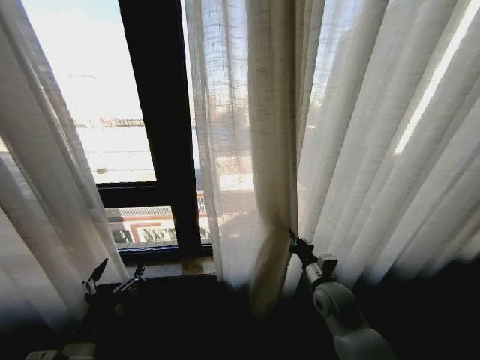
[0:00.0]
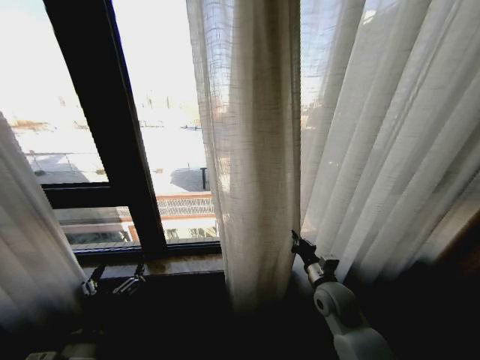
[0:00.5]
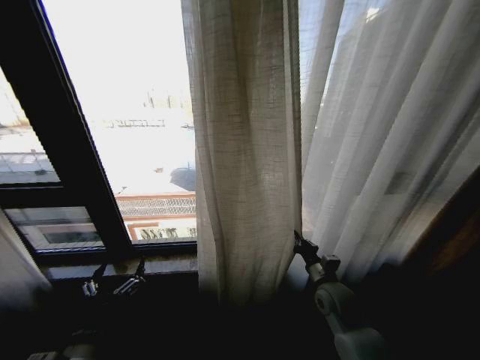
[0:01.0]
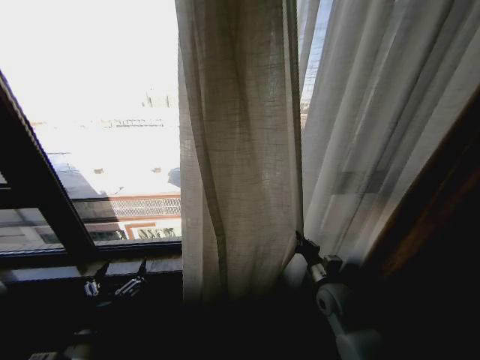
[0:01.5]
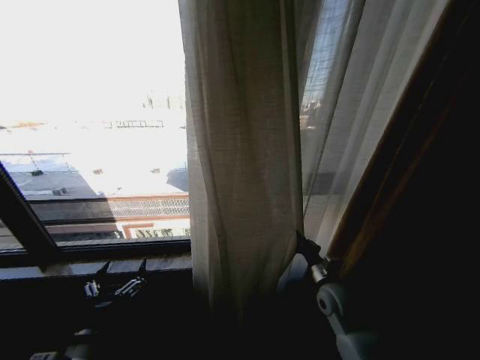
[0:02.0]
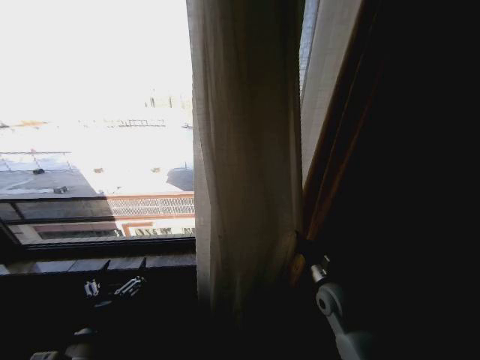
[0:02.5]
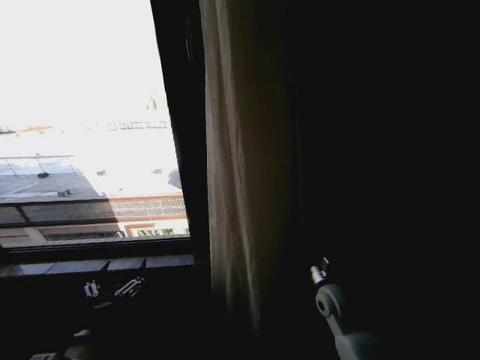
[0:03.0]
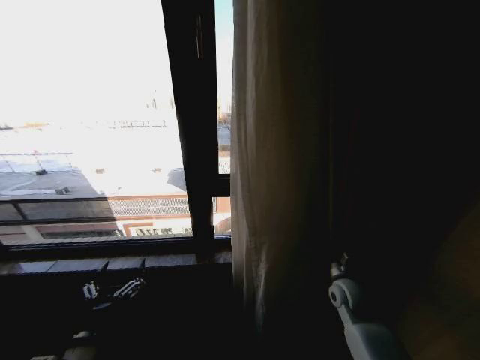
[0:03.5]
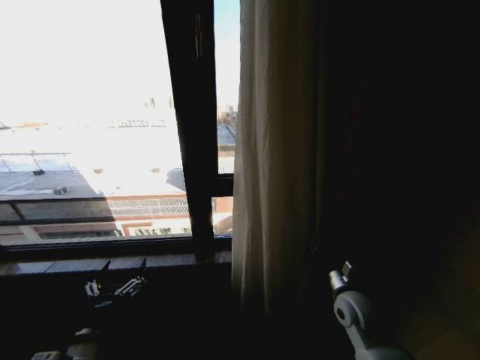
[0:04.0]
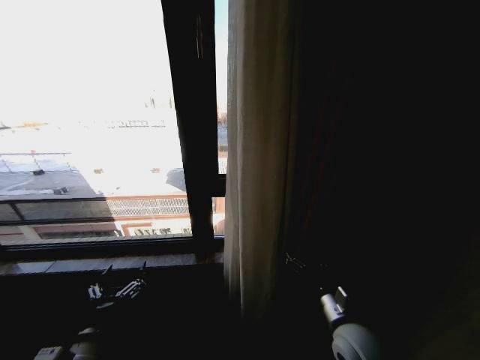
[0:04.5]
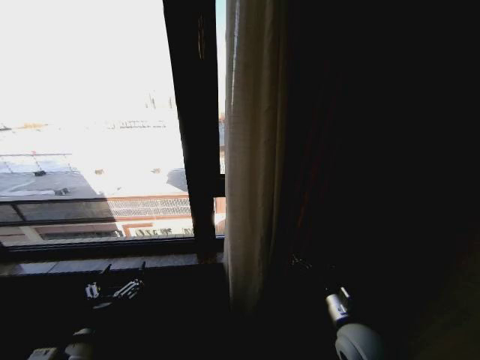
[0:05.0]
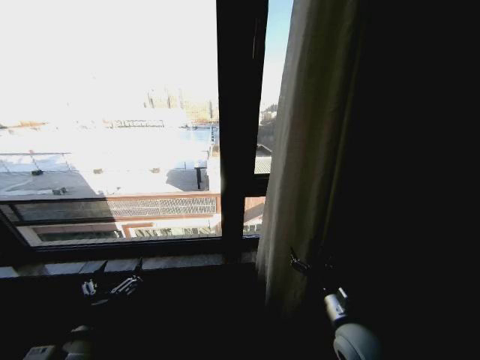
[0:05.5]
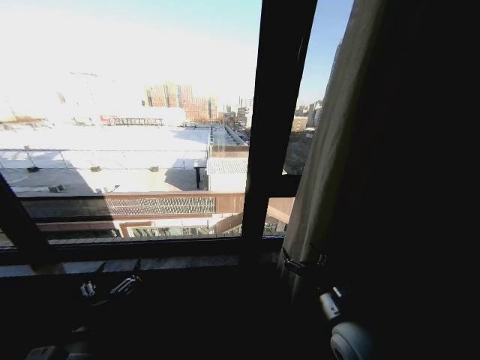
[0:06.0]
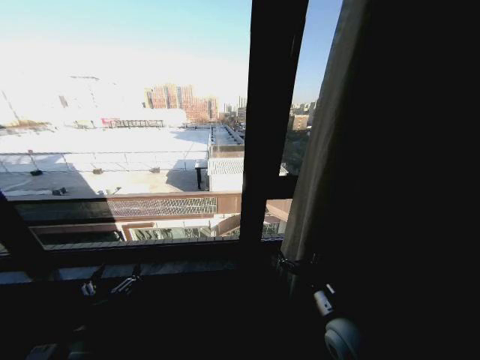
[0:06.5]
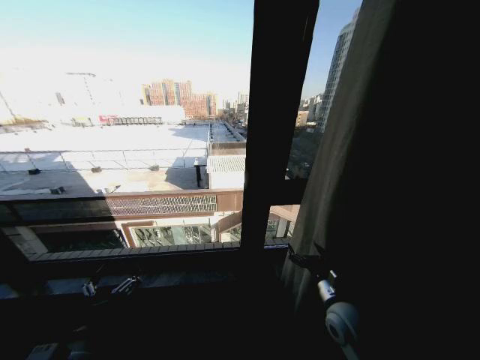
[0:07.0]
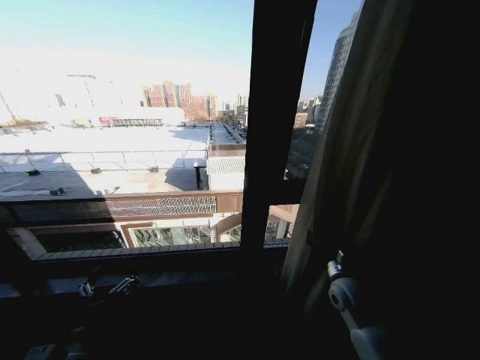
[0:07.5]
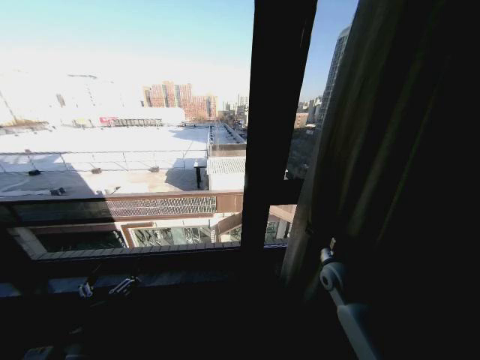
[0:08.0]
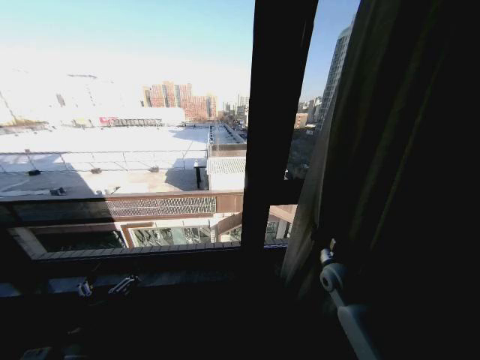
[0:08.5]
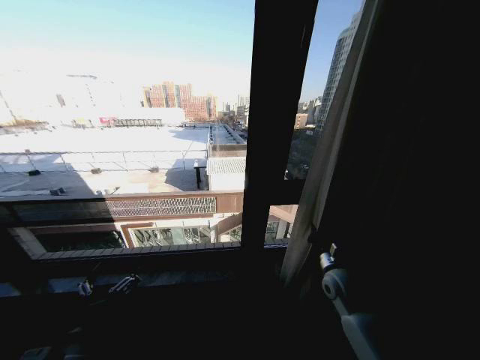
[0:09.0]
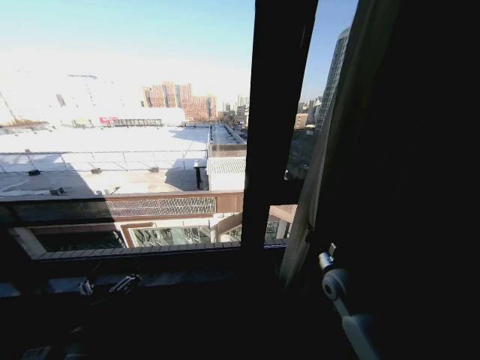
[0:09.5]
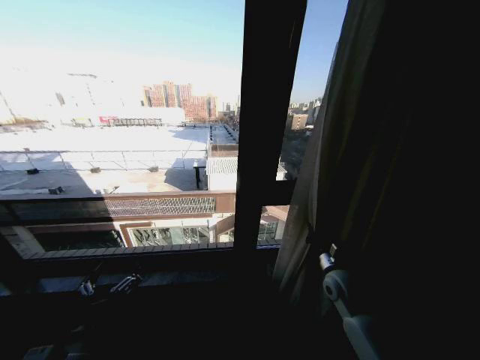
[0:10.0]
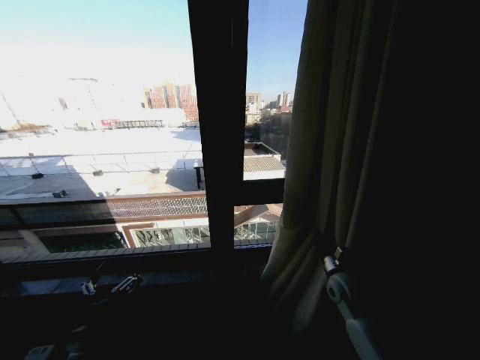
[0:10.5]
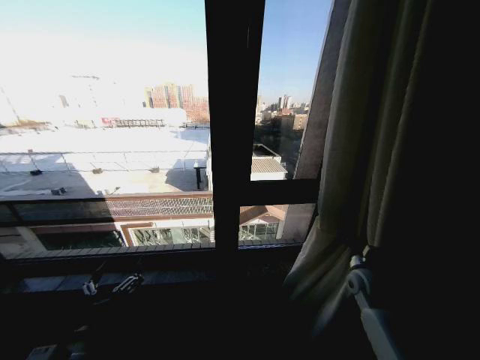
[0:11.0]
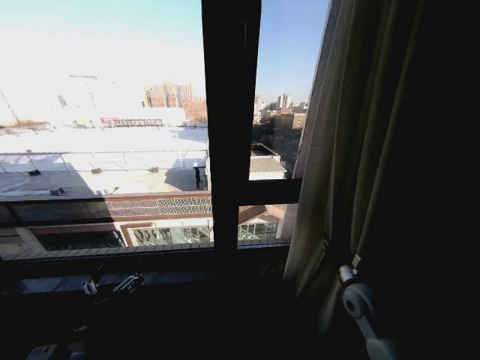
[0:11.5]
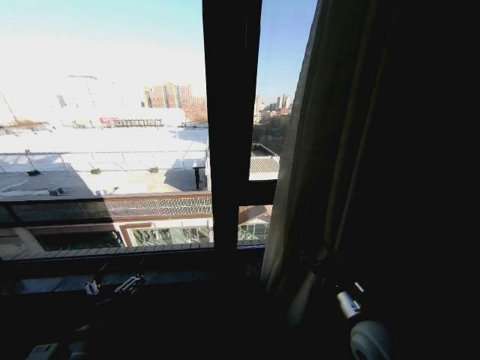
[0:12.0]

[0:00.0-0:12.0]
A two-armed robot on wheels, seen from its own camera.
Task of the whole recording: Open the curtains by pulling them apart, changing their state from closed to fully open.
0:02.0 to 0:04.0: The right gripper opens up.
0:04.0 to 0:06.0: The right gripper moves backward and to the left, some 10 cm, and opens up.
0:06.0 to 0:08.0: The right gripper is displaced forward and to the right by about 15 cm.
0:08.0 to 0:10.0: The right gripper closes.
0:10.0 to 0:12.0: The right gripper moves backward, some 15 cm, and opens.

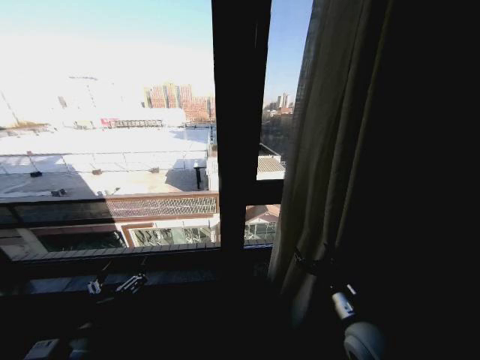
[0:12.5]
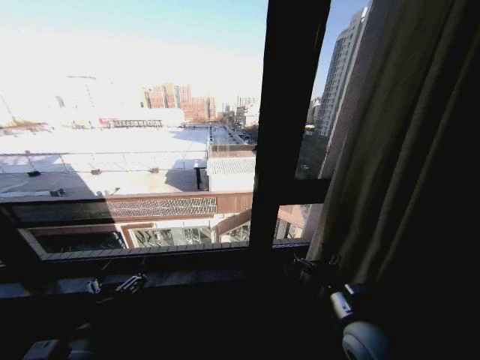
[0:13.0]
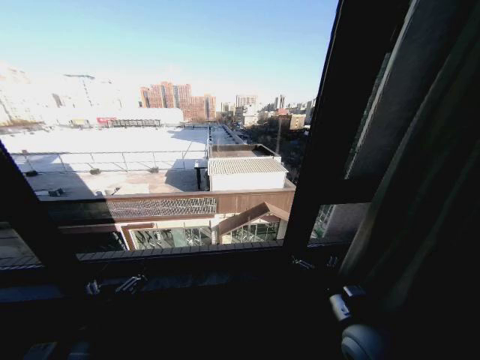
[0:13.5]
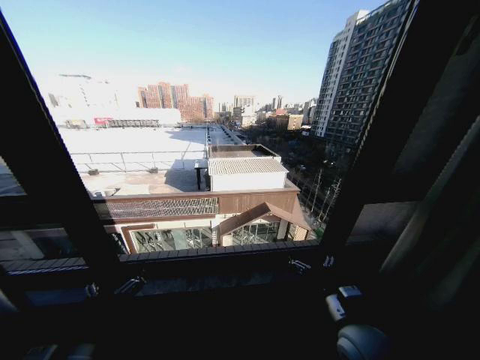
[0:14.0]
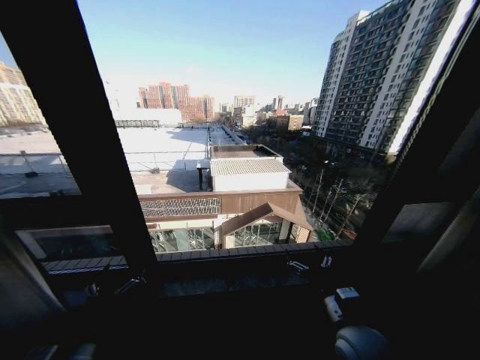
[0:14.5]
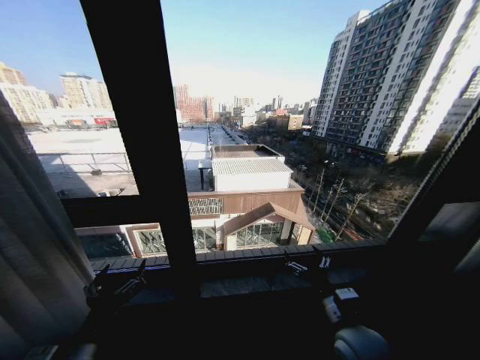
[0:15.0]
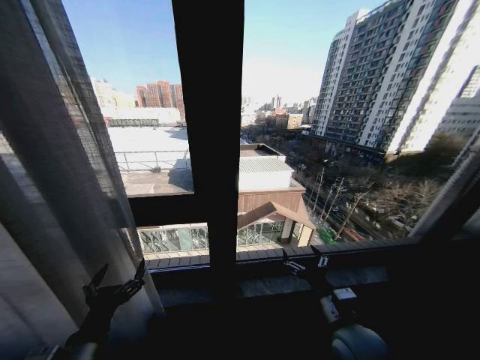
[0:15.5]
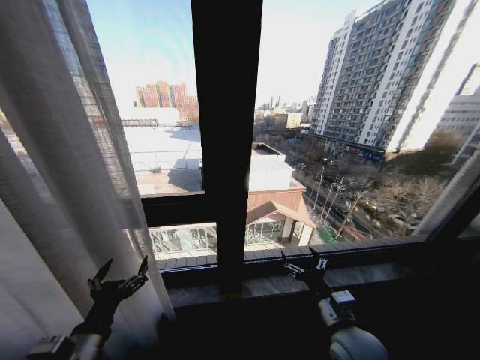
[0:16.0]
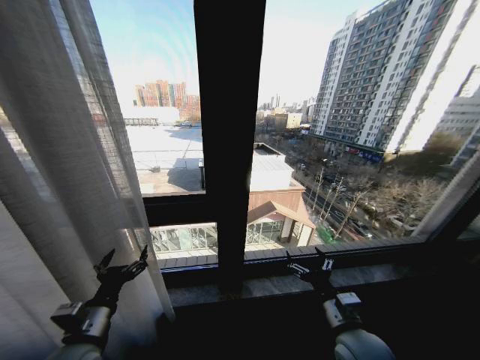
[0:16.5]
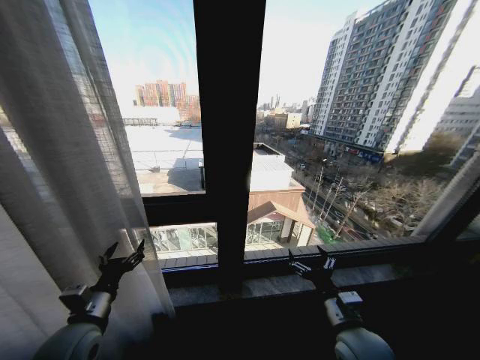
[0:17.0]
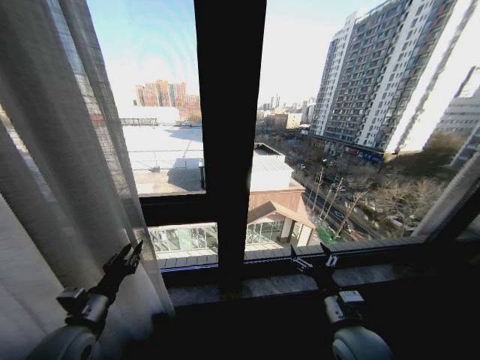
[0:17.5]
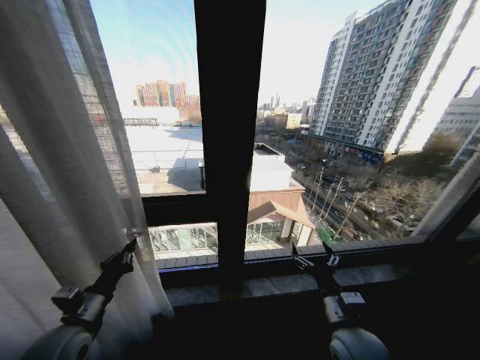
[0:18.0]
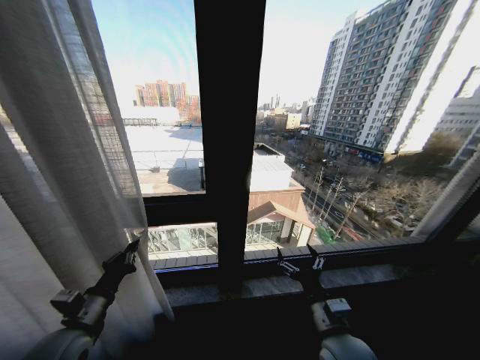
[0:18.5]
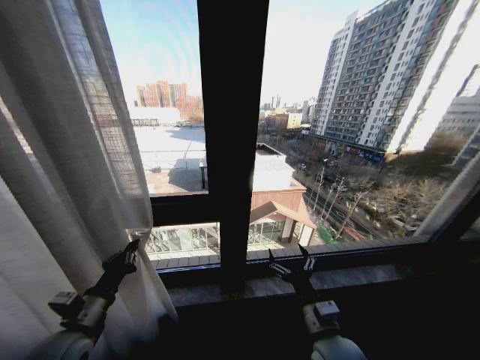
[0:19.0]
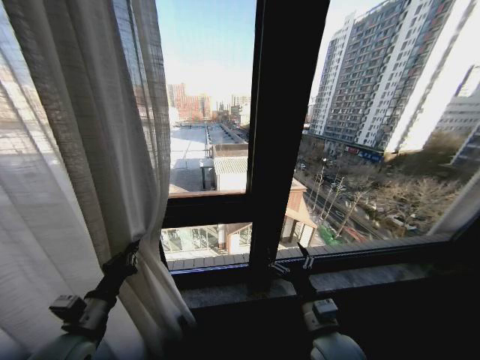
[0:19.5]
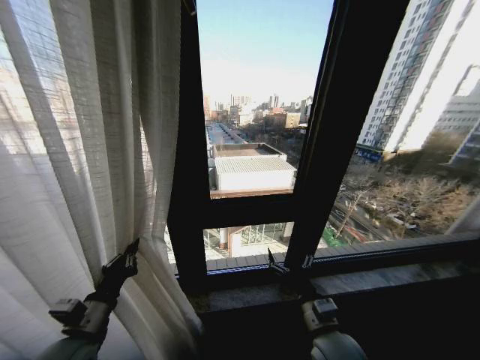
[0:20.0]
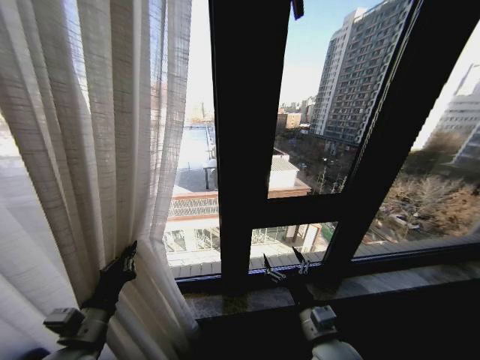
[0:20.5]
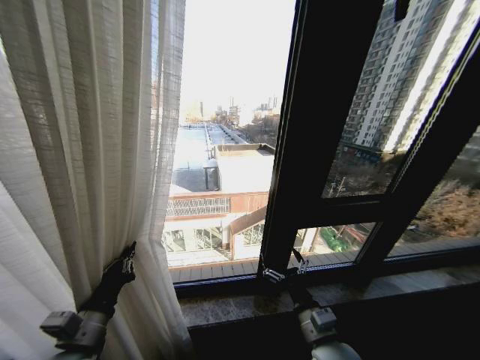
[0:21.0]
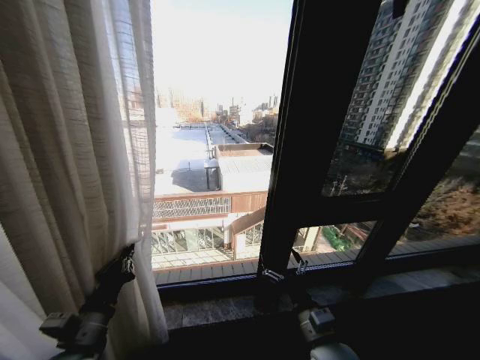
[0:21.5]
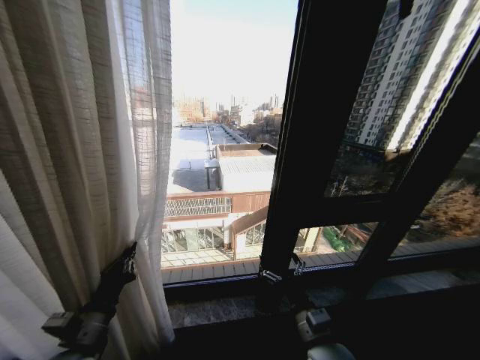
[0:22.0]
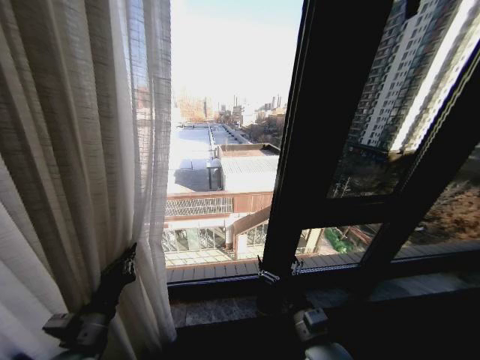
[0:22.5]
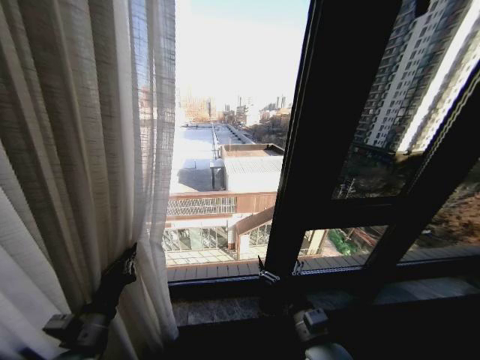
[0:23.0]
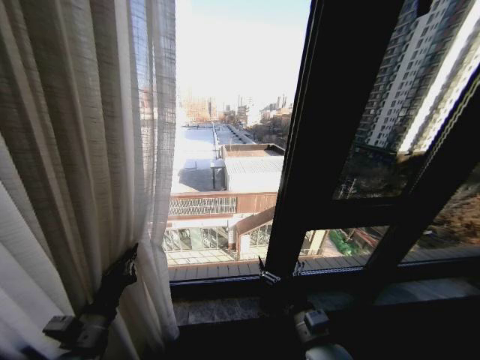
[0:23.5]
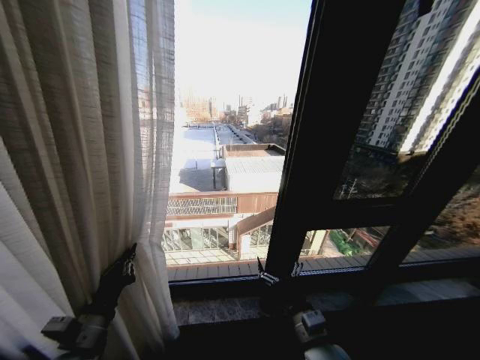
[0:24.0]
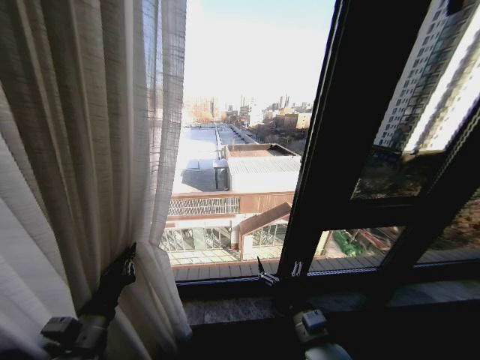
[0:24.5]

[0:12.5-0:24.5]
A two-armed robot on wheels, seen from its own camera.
Task of the whole recording: Open the curtains by pulling them apart, changing their state from closed to fully open.
0:14.5 to 0:16.5: The left gripper shifts about 5 cm forward.
0:16.5 to 0:18.5: The left gripper closes up.

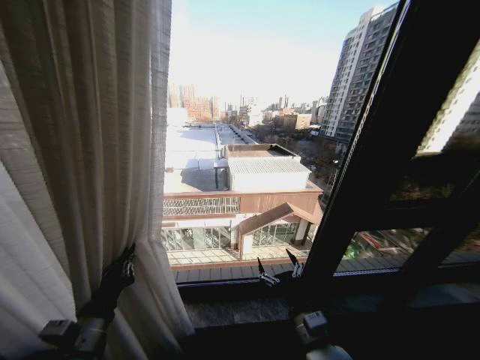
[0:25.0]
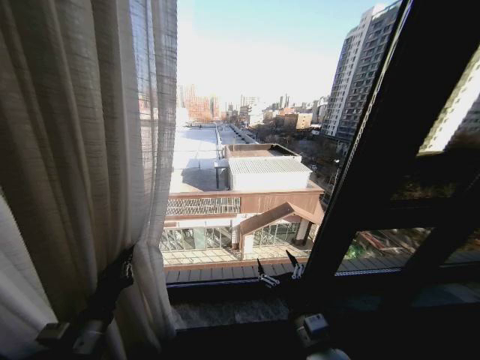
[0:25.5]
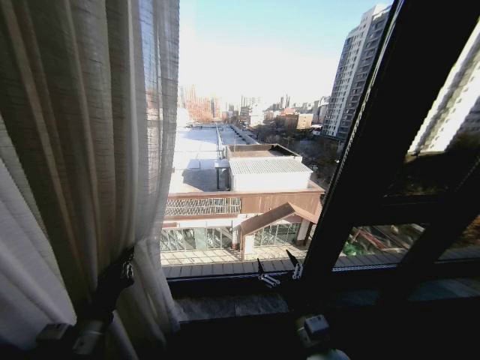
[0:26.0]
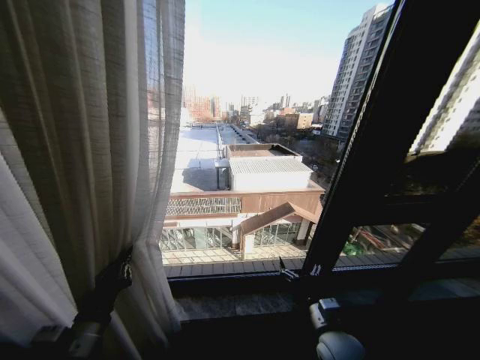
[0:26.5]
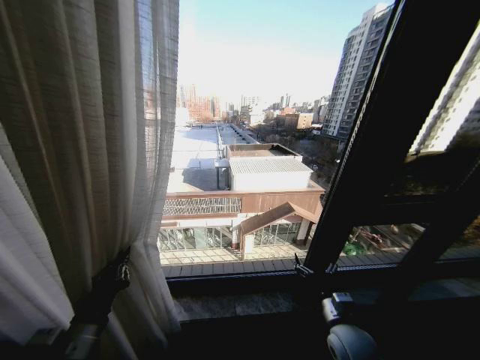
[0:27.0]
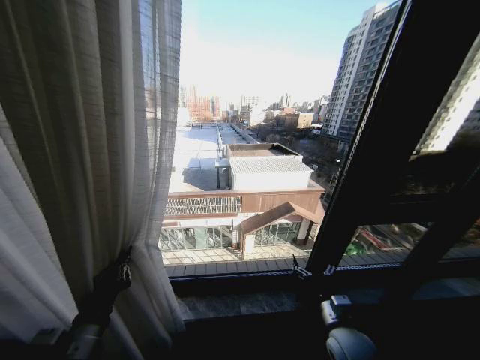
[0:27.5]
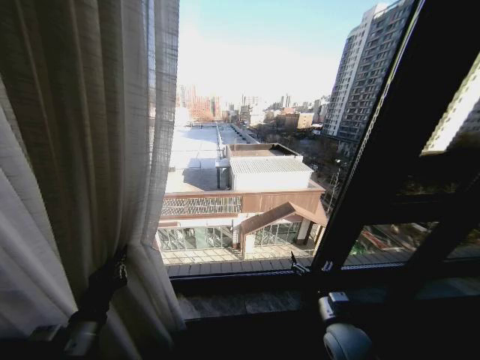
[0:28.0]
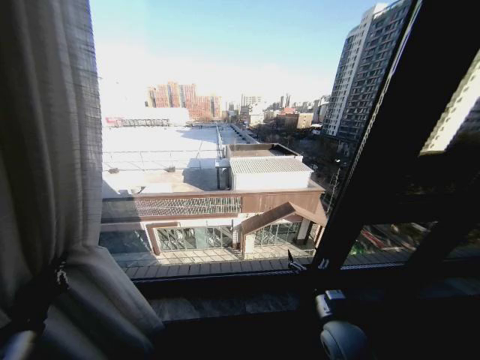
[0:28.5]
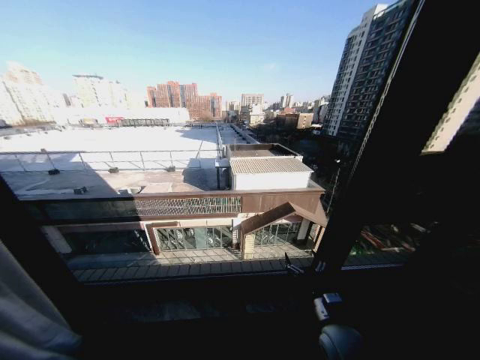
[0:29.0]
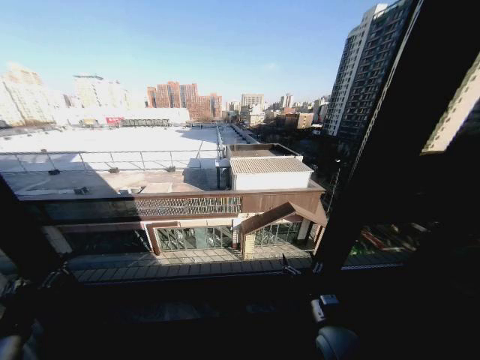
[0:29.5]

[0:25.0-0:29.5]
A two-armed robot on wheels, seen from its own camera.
Task of the whole recording: Open the curtains by pulling them apart, changing their state from closed to fully open.
0:25.0 to 0:27.0: The right gripper shifts approximately 10 cm to the right.
0:27.0 to 0:29.5: The left gripper is displaced to the left by some 10 cm, and opens up.
